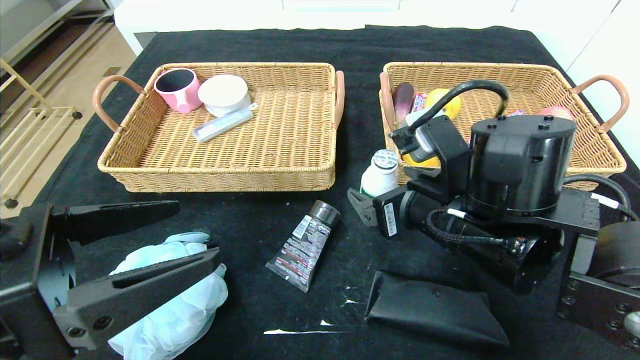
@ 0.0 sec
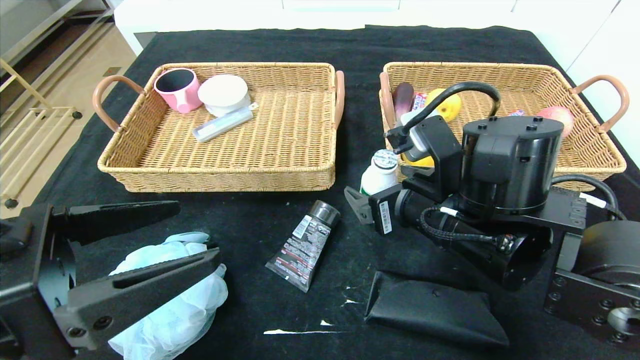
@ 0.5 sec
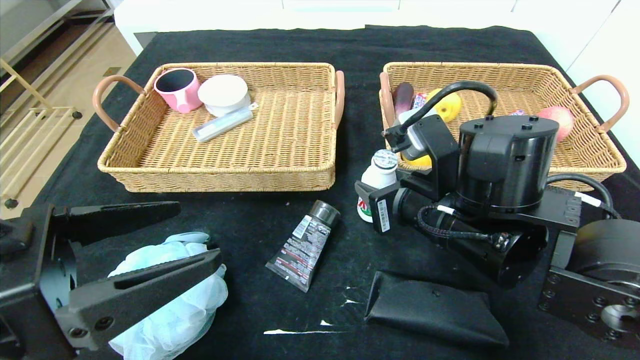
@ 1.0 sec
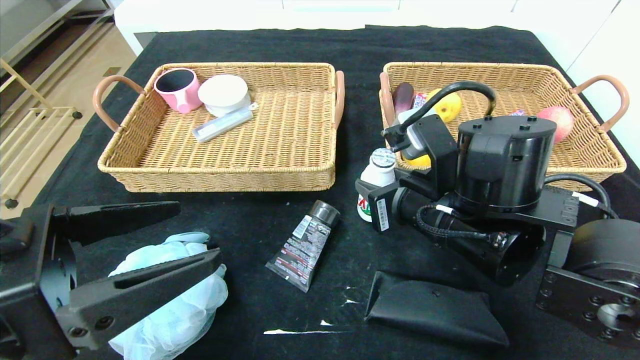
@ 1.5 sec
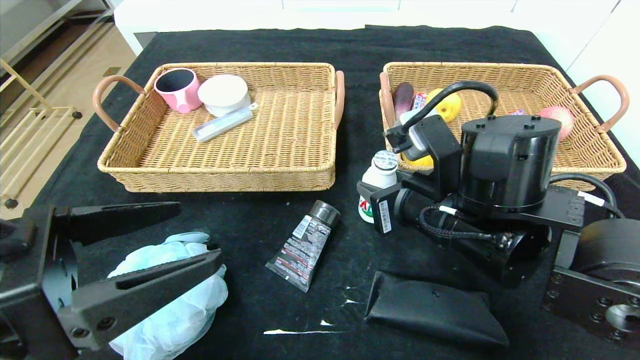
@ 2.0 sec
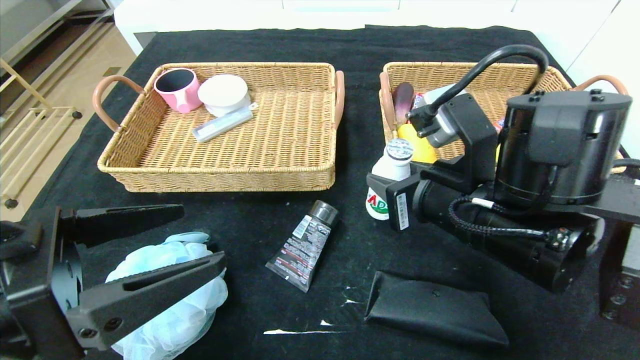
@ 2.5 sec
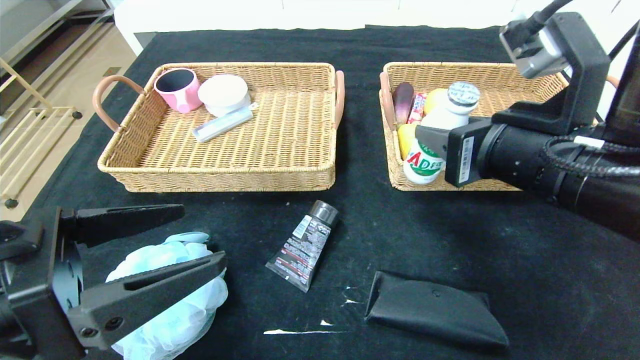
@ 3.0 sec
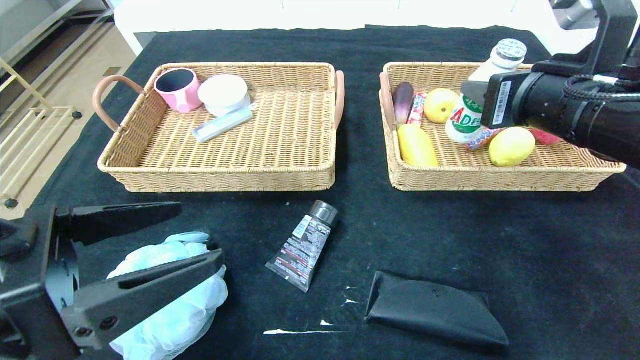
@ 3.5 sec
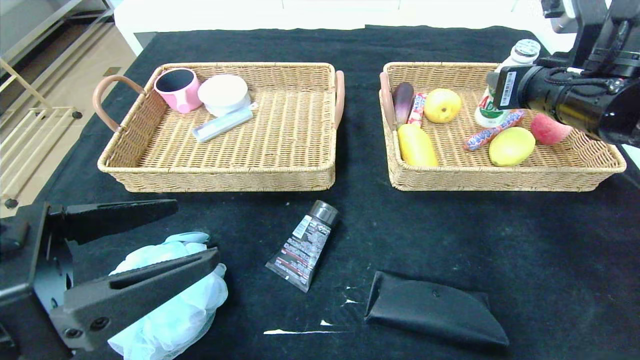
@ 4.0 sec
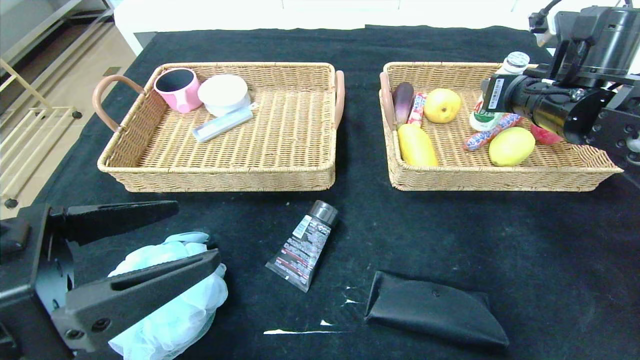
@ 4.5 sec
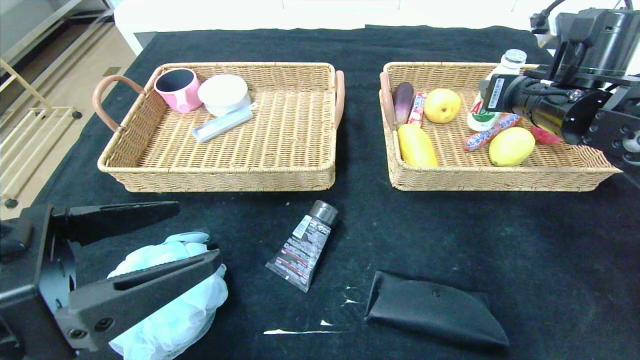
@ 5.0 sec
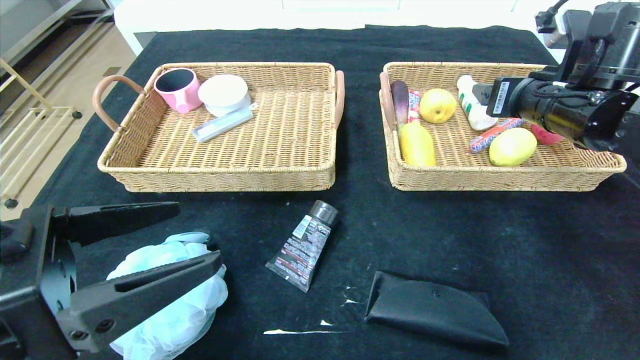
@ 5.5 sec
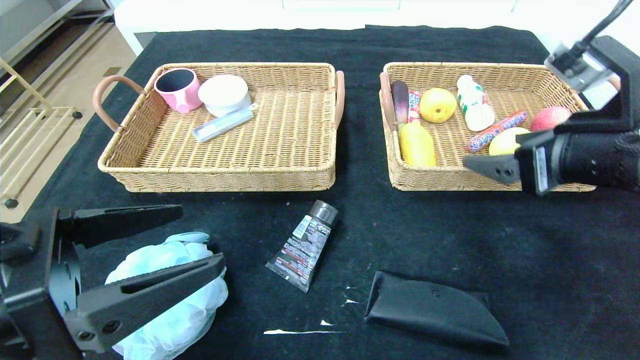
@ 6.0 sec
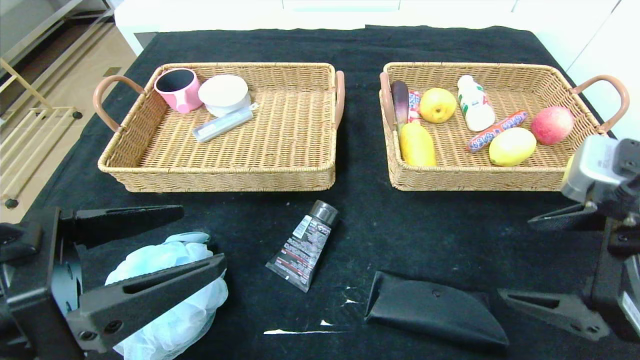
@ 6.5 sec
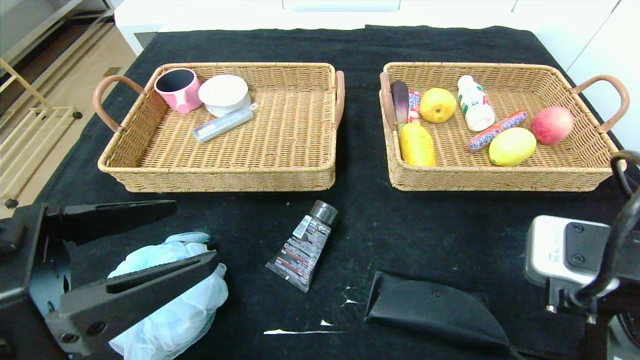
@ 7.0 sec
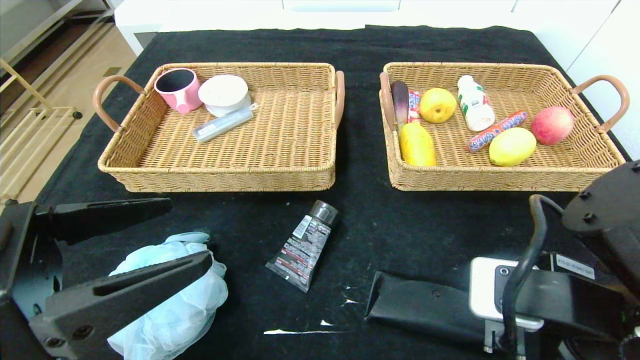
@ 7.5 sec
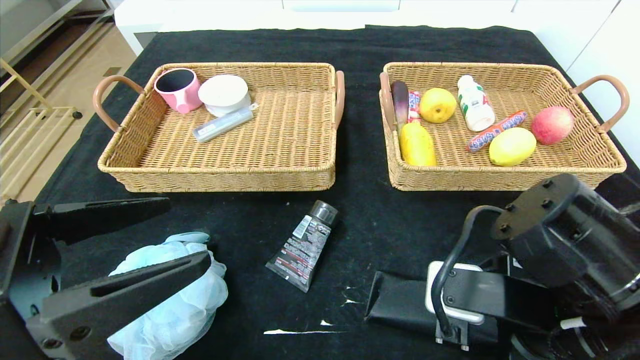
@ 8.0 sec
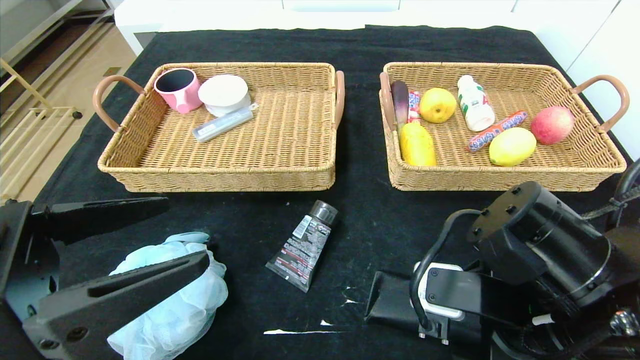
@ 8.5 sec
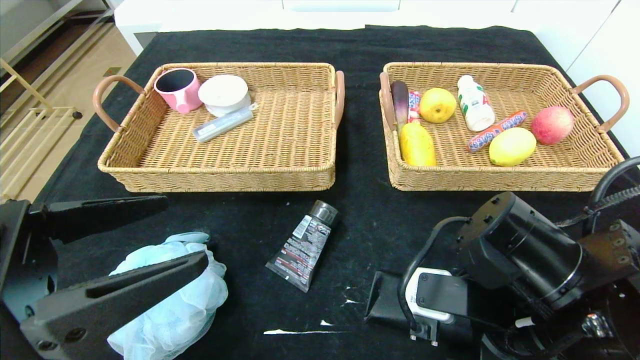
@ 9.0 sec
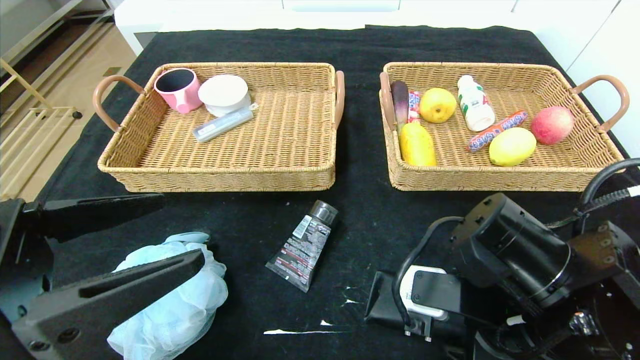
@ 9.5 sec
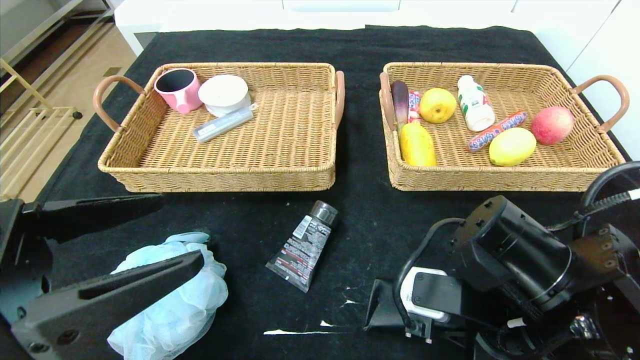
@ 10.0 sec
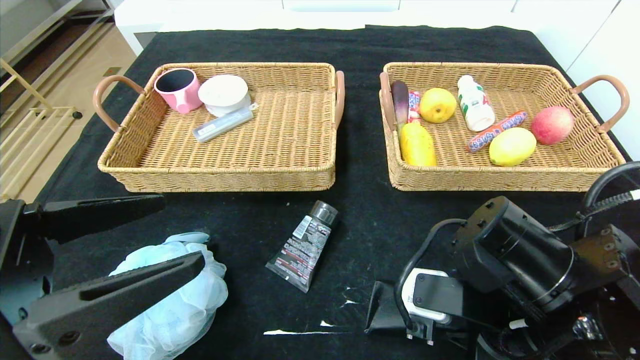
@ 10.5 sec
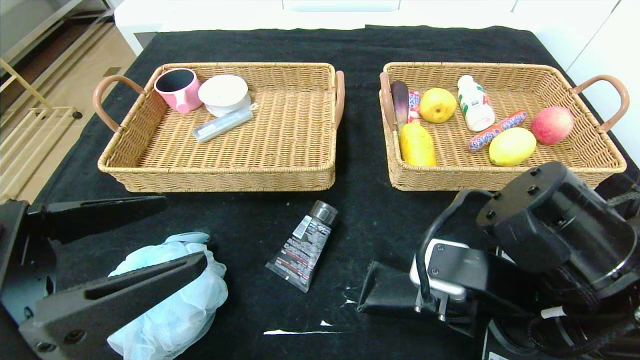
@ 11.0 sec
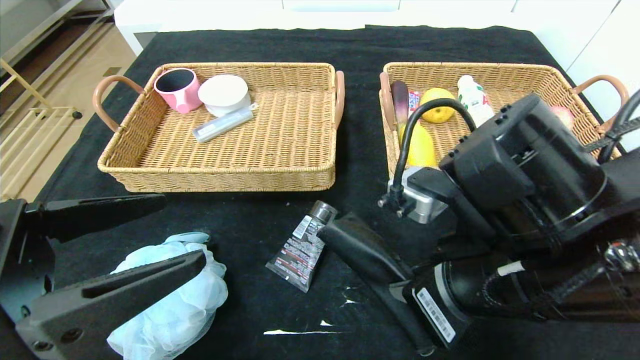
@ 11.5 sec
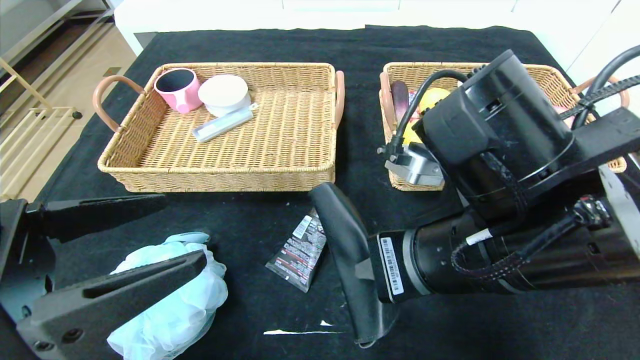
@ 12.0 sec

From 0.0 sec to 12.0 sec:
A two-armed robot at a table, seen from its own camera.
Step, from 0.0 sec to 5.5 sec: Grasp the ad milk and put it in the right basket.
From 0.0 sec to 2.0 sec: The right gripper closes up.
From 2.0 sec to 4.0 sec: The right gripper heads to the right, upward and forward, covering about 20 cm.
From 4.0 sec to 6.0 sec: The right gripper moves backward, roughly 10 cm, and opens up.
From 6.0 sec to 8.0 sec: The right gripper moves downward, to the left and backward, some 15 cm.
From 8.0 sec to 10.0 sec: The right gripper closes up.
From 10.0 sec to 12.0 sec: The right gripper goes about 10 cm upward and to the left.

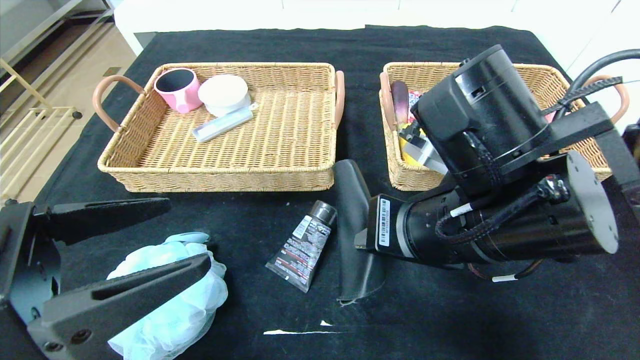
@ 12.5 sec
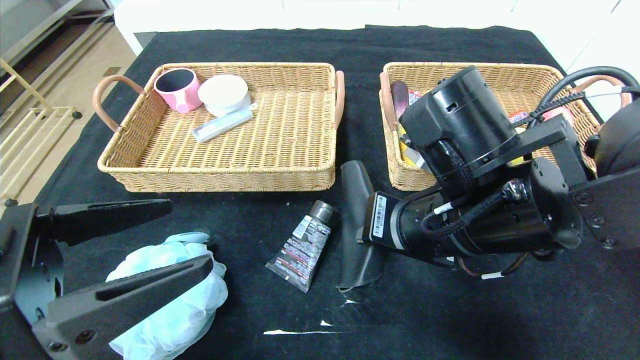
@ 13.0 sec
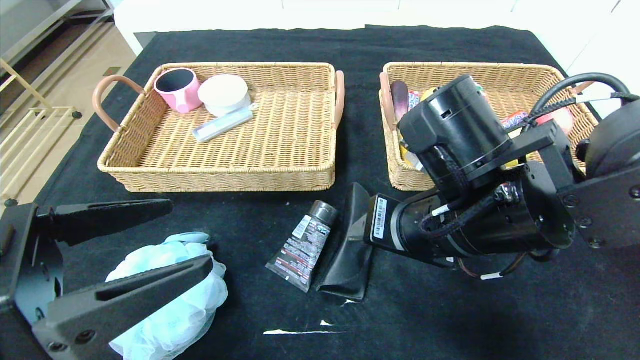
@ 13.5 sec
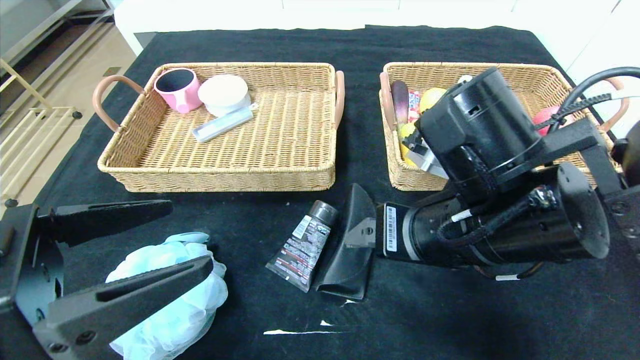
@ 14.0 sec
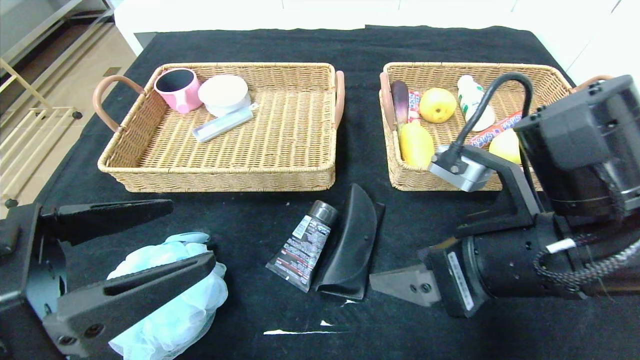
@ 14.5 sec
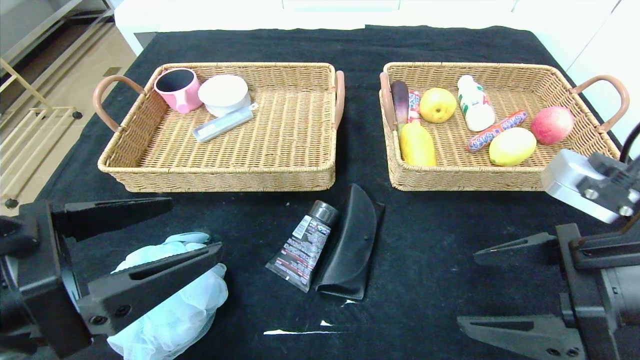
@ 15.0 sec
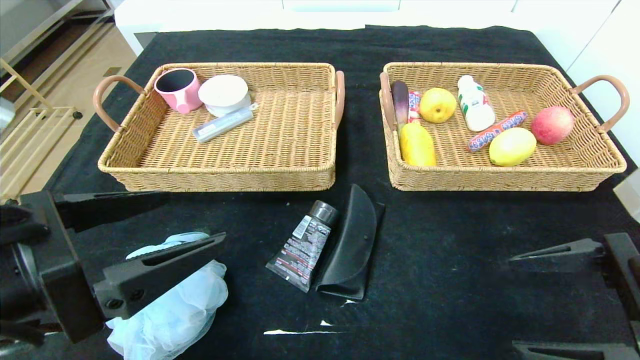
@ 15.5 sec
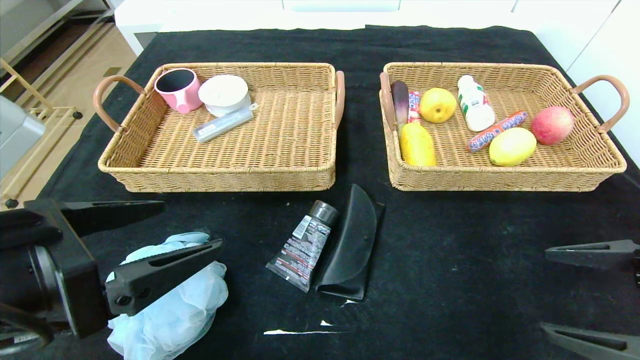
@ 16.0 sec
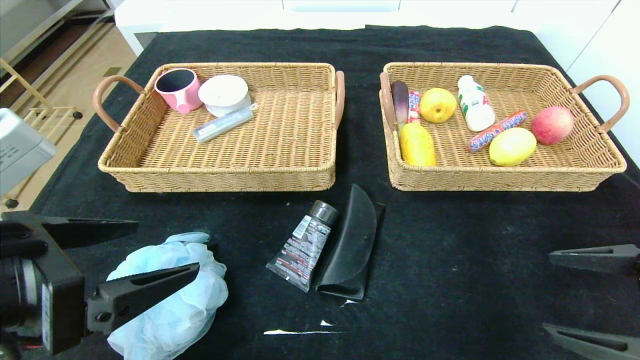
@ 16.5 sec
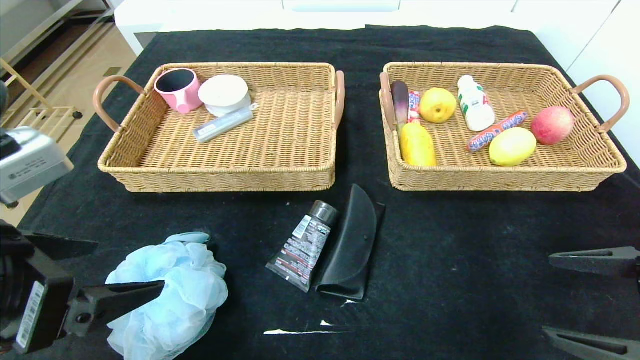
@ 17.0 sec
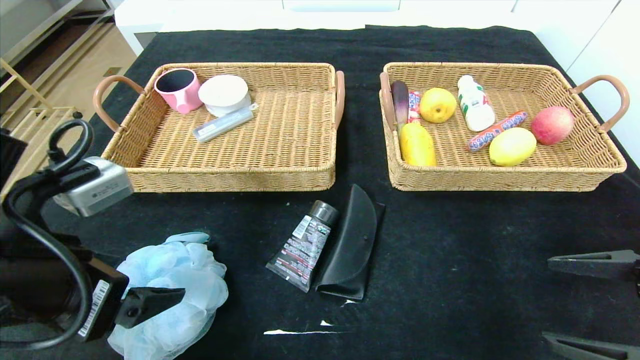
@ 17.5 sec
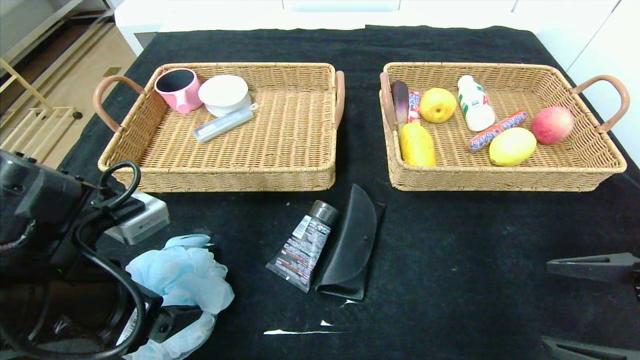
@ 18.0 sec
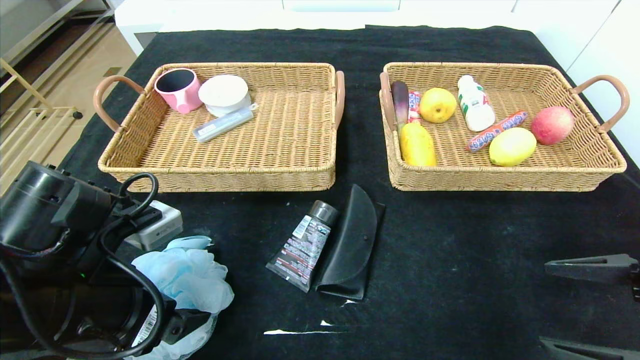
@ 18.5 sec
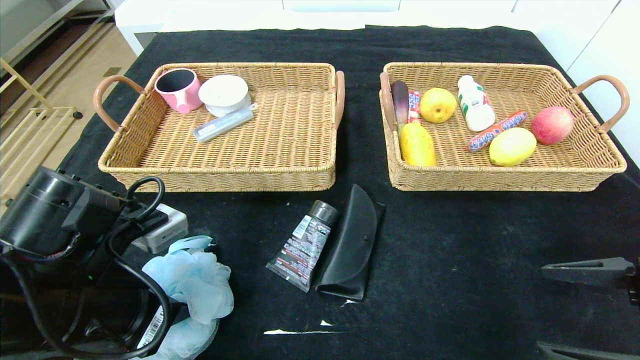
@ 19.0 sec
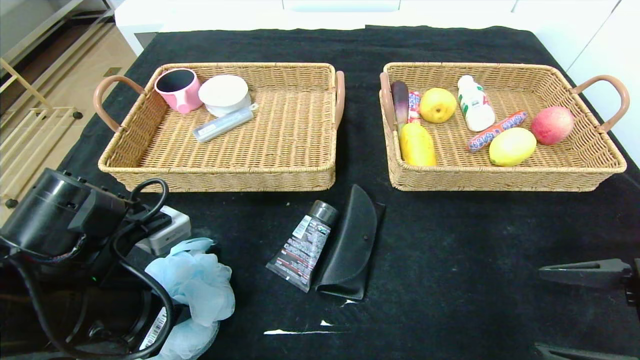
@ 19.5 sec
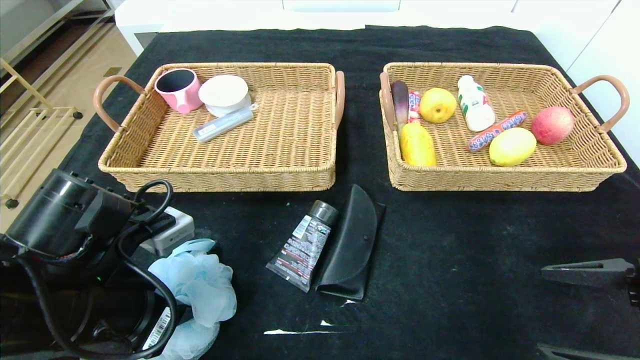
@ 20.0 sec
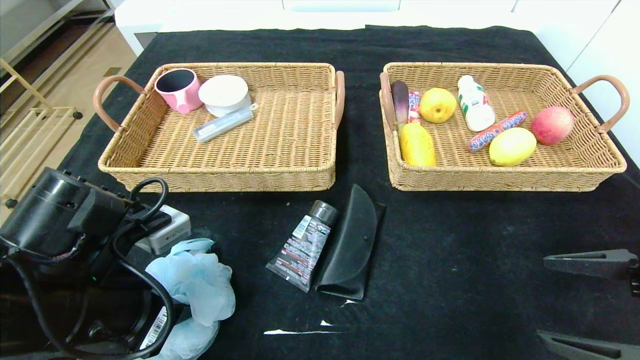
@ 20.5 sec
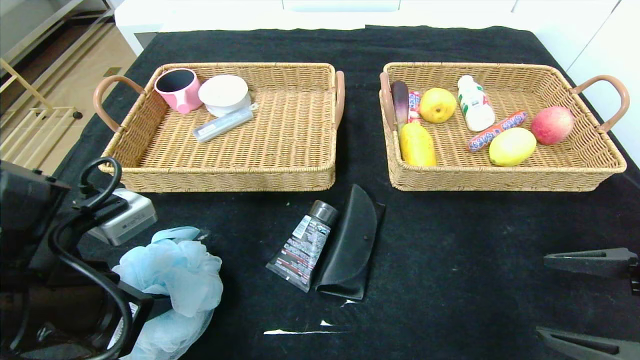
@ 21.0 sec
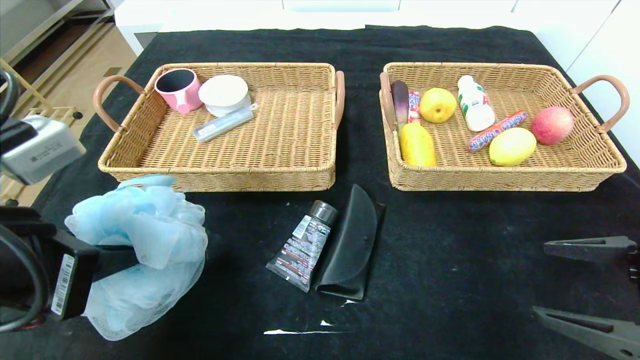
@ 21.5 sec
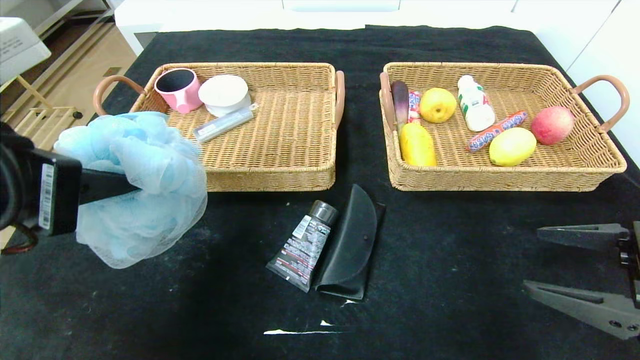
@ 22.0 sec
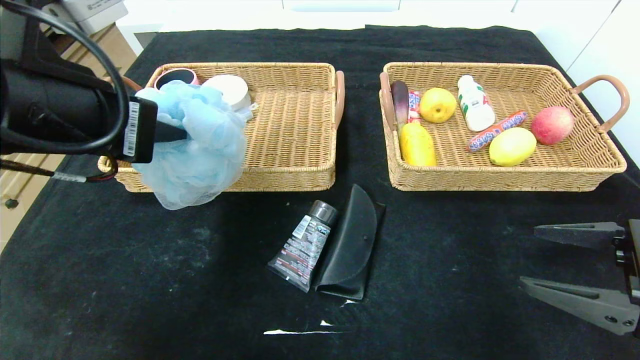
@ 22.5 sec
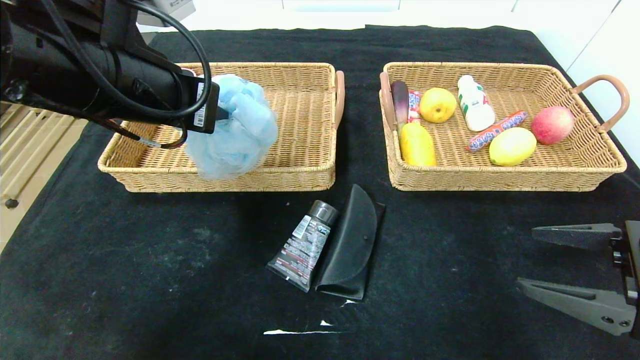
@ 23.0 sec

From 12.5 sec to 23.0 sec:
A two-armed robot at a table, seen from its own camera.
From 12.5 sec to 14.5 sec: The right gripper heads to the right, covering roughly 5 cm, and opens up.
From 14.5 sec to 16.5 sec: The right gripper shifts roughly 15 cm to the right.
From 16.5 sec to 19.0 sec: The left gripper is displaced downward and forward by some 10 cm, and closes.
From 19.0 sec to 21.0 sec: The grippers move only a little.
From 21.0 sec to 23.0 sec: The left gripper moves upward and forward, roughly 15 cm.
